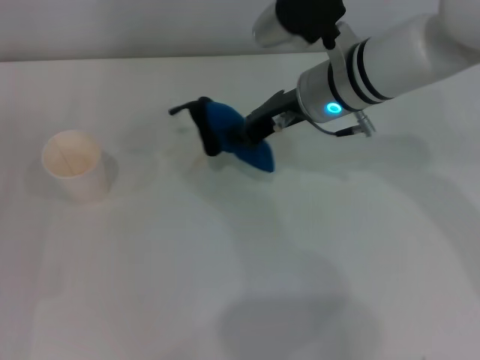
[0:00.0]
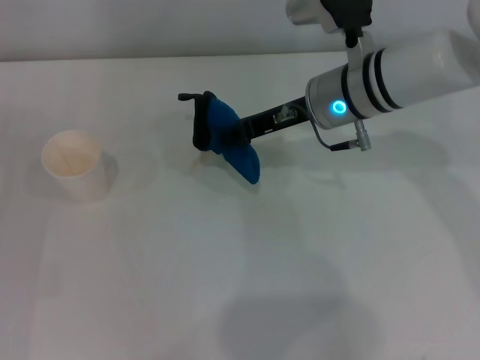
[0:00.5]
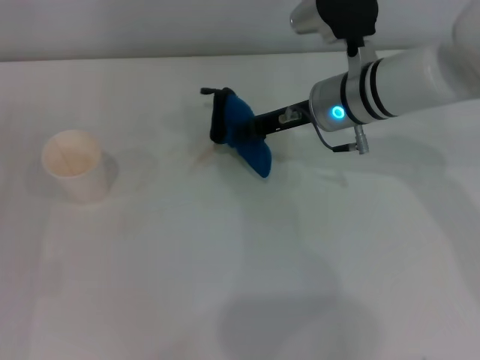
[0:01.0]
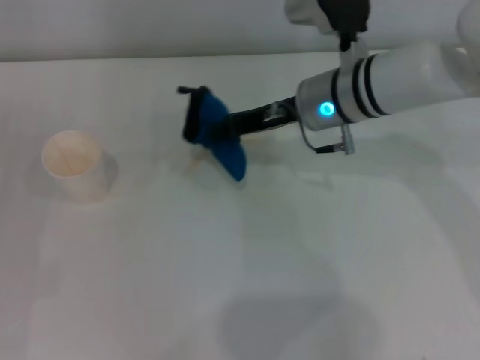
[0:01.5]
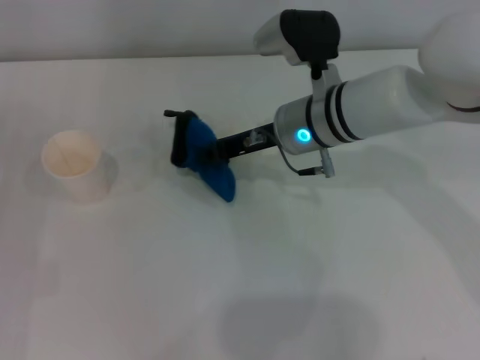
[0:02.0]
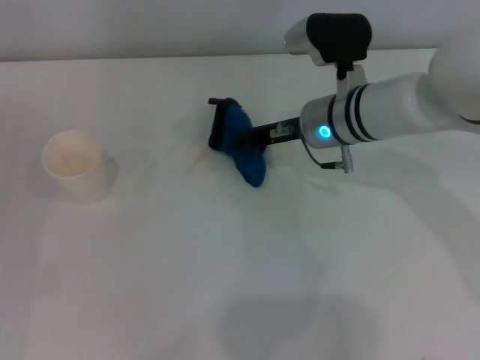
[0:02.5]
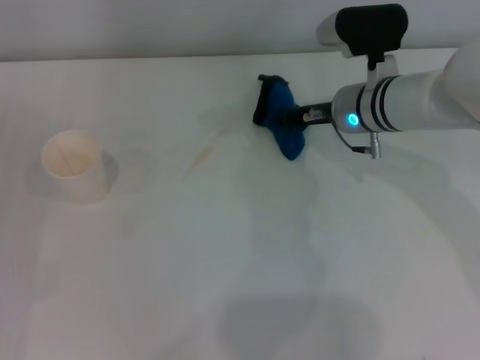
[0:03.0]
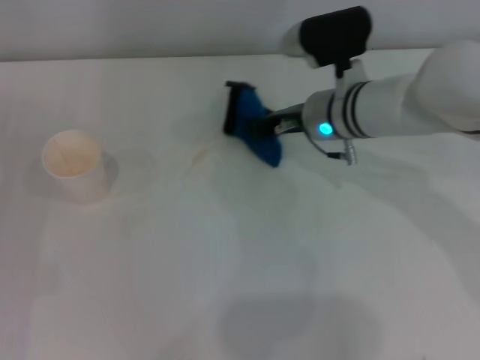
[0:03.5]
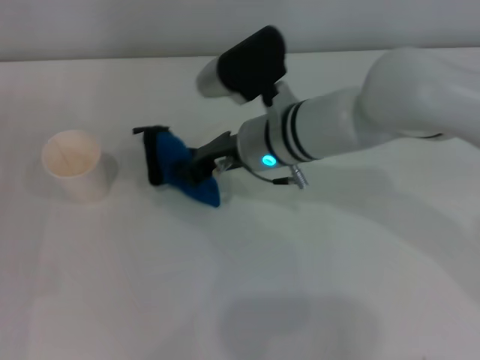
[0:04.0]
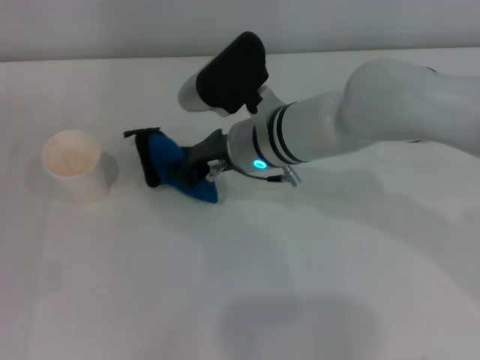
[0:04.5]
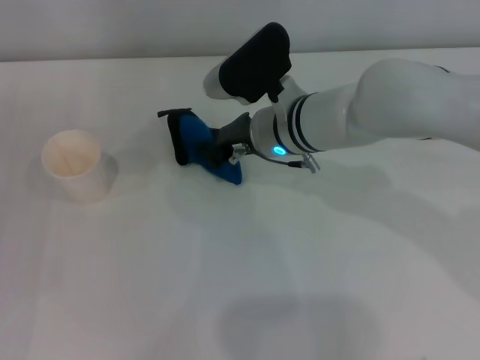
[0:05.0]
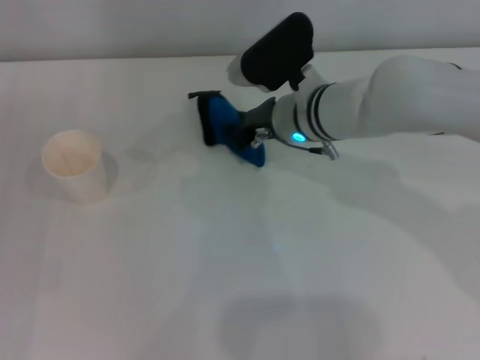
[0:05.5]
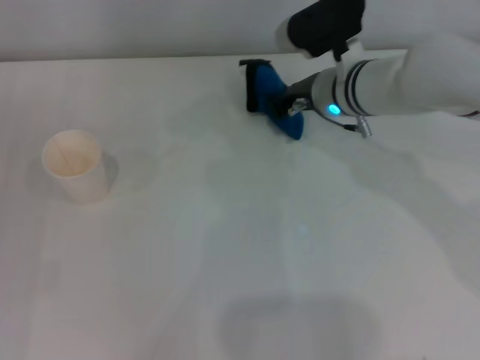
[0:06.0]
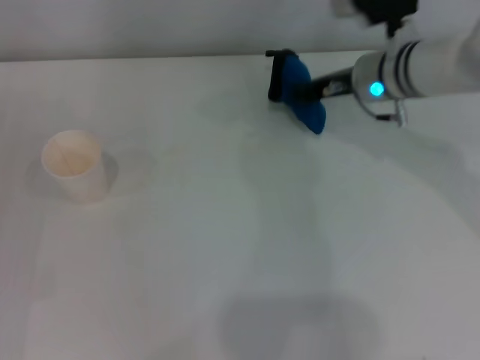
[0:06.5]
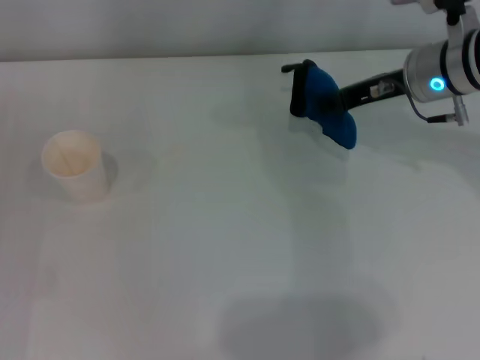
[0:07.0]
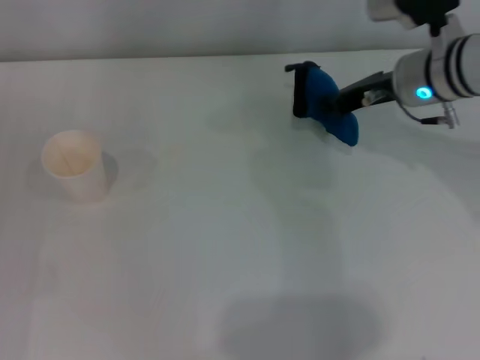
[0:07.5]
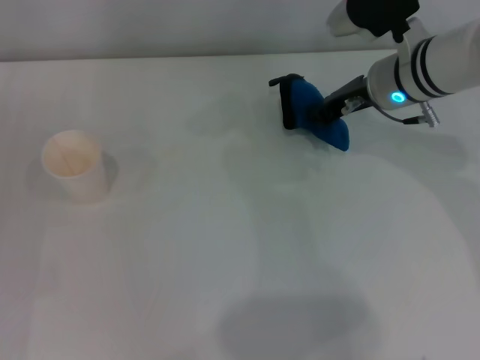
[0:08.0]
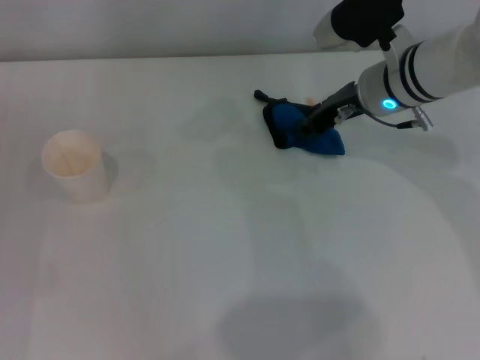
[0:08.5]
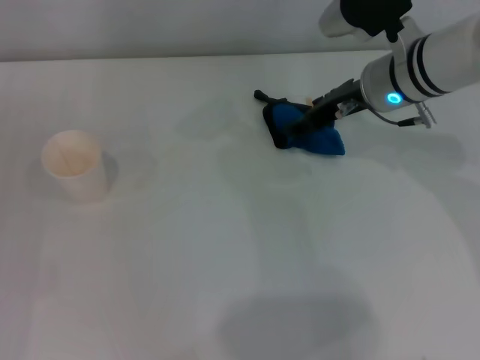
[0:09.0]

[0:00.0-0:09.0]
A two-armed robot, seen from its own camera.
0:02.0 to 0:04.5: The right gripper moves to the left, roughly 5 cm.
0:04.5 to 0:07.0: The right gripper heads to the right, covering roughly 20 cm.
0:07.0 to 0:09.0: The right gripper opens its fingers.

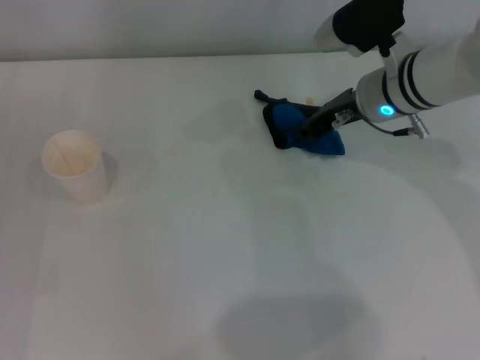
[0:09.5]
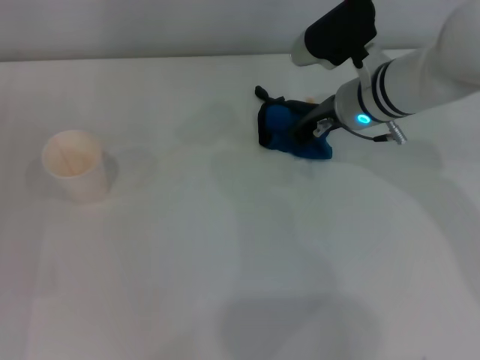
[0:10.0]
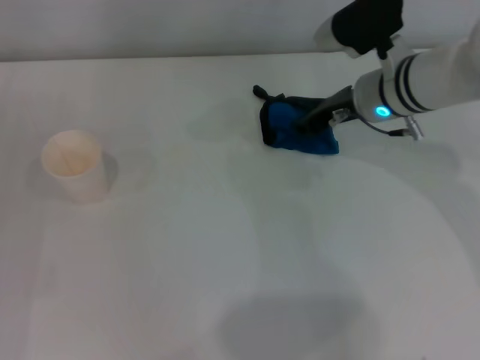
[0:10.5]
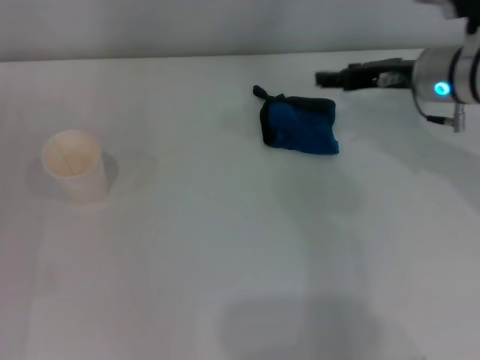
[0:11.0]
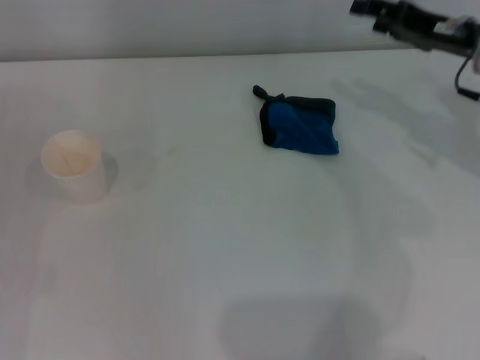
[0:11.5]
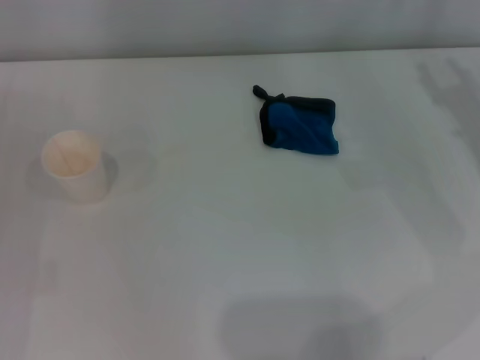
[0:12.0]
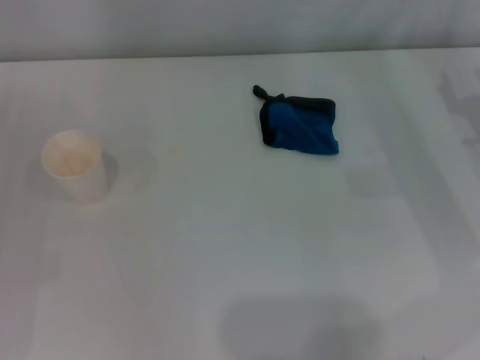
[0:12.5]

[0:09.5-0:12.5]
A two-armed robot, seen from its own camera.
Step, 0:10.0 to 0:10.5: Place the rag on the table with the right gripper.
0:09.5 to 0:11.0: The right gripper is displaced to the right by about 5 cm, and closes, then reopens.
0:11.0 to 0:12.5: The right gripper shifts roughly 15 cm to the right and backward.

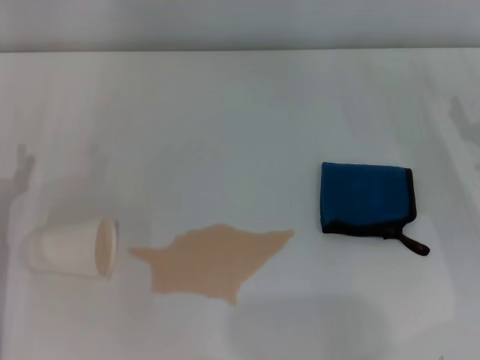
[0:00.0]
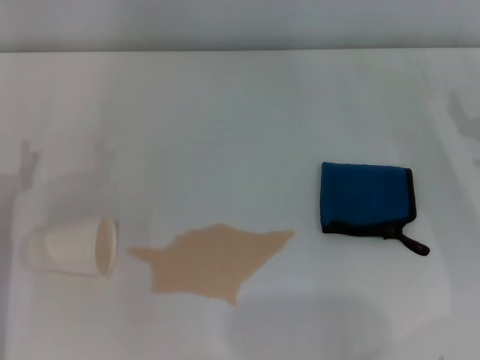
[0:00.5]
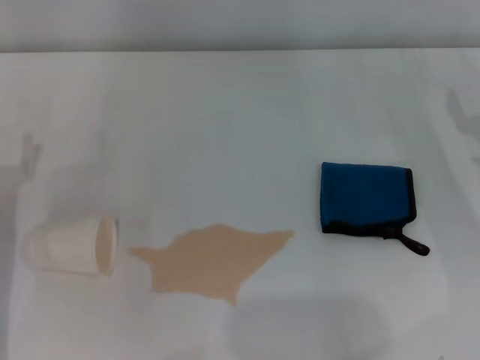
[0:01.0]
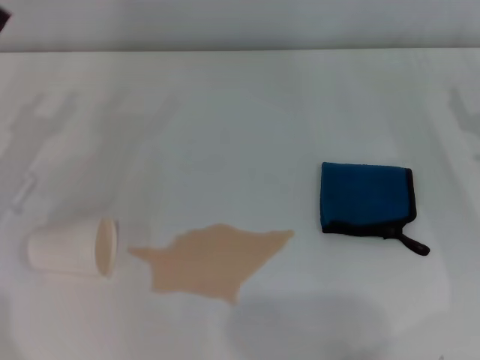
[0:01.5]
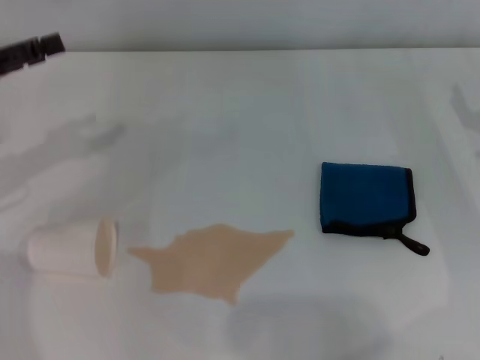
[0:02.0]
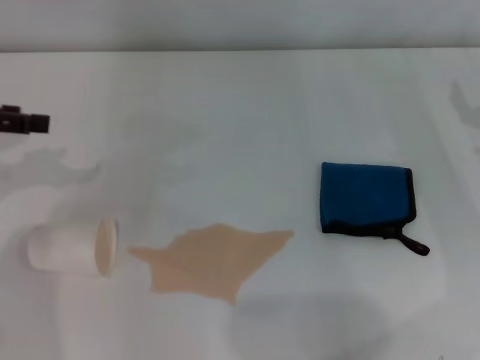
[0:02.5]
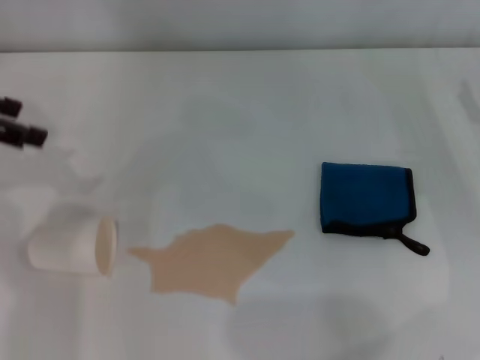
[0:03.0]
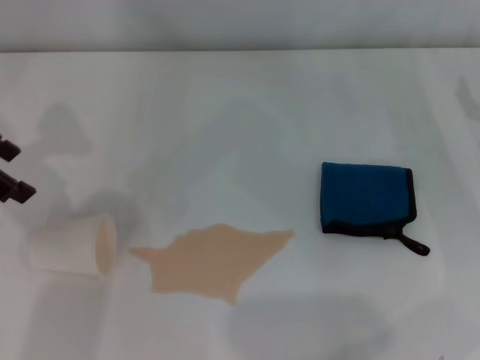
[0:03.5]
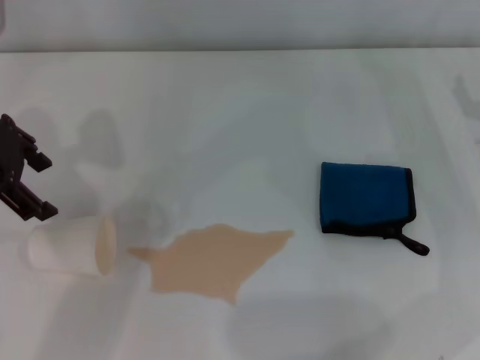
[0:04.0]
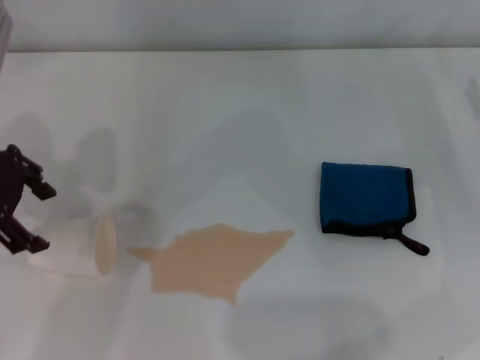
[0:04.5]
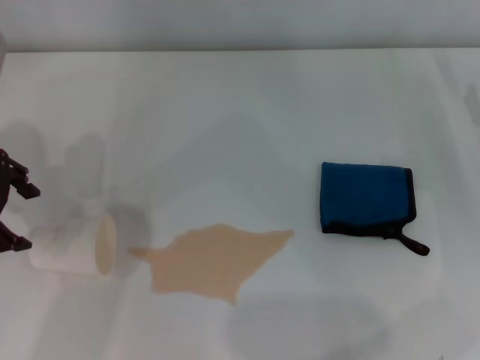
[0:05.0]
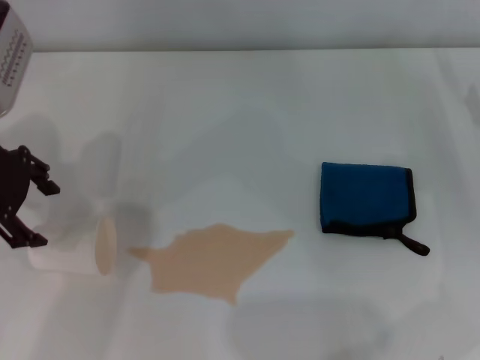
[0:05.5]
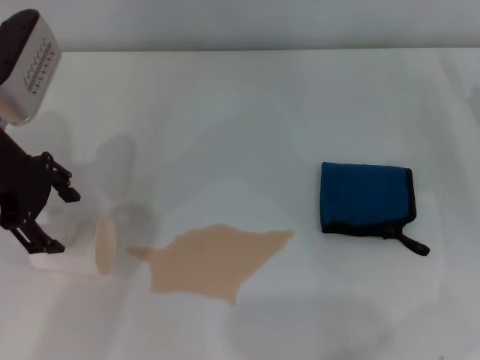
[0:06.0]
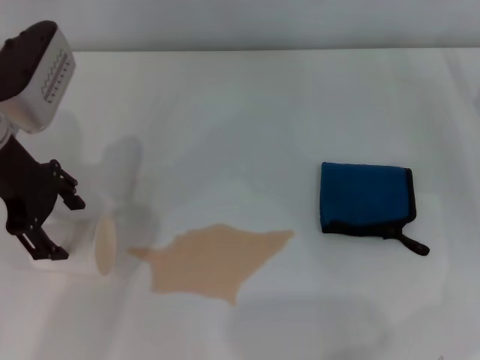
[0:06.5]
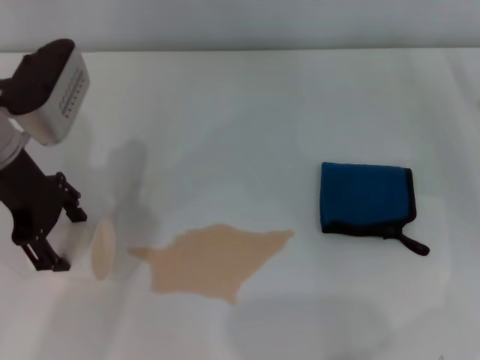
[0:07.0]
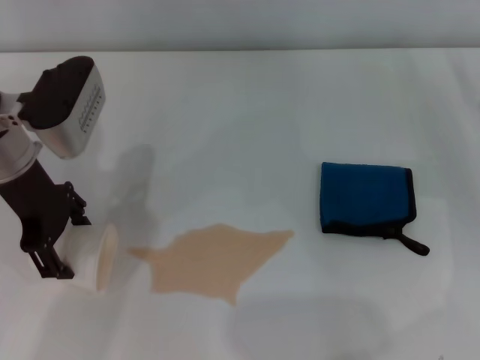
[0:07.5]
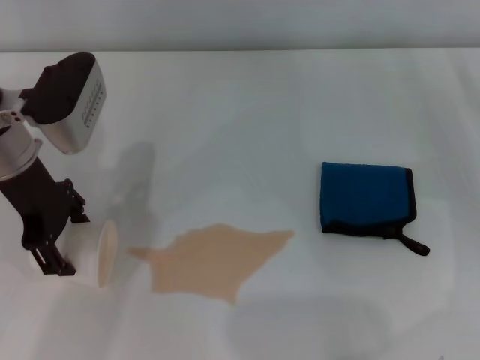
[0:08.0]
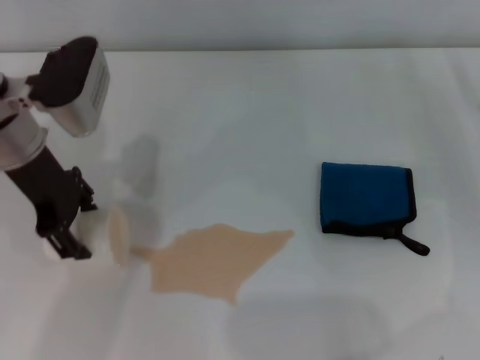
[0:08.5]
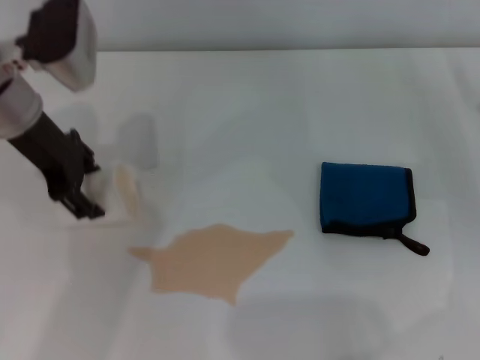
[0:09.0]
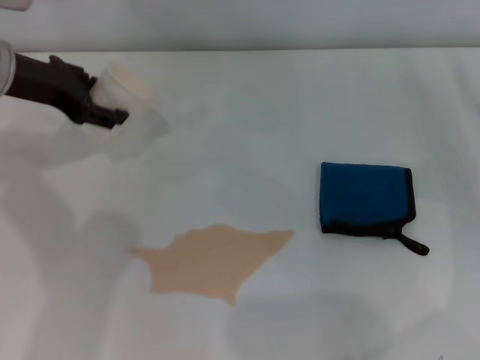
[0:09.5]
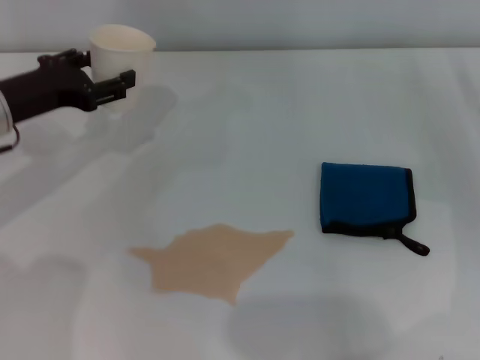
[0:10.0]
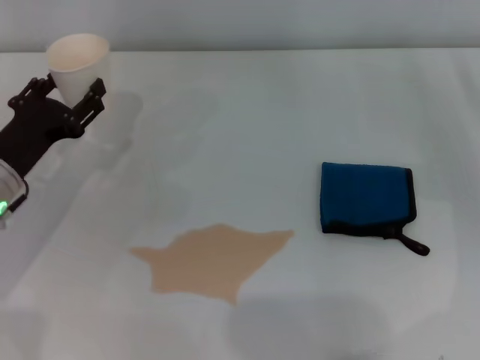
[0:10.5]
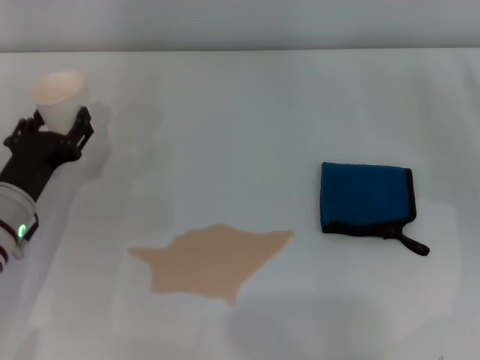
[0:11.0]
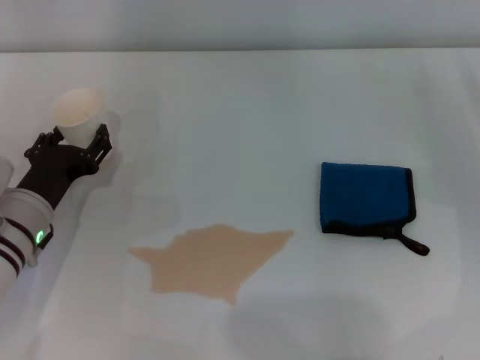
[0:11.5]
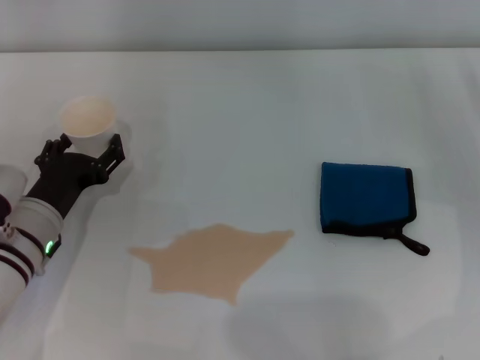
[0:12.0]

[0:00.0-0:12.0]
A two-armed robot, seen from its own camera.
Step, 0:00.0 to 0:08.0: Grasp the paper cup with the left gripper.
Step, 0:08.5 to 0:12.0: Stand the paper cup upright with the left gripper.
0:00.0 to 0:02.0: The left gripper shifts approximately 20 cm upward, forward and to the left.
0:02.0 to 0:04.0: The left gripper heads to the right and upward, covering about 10 cm.
0:04.0 to 0:06.0: The left gripper is displaced downward by about 5 cm.
0:06.0 to 0:08.0: The grippers move only a little.
0:08.0 to 0:10.0: The left gripper heads to the left, covering about 5 cm, and closes its fingers.
0:10.0 to 0:12.0: The left gripper travels downward and backward by approximately 15 cm, and opens its fingers.

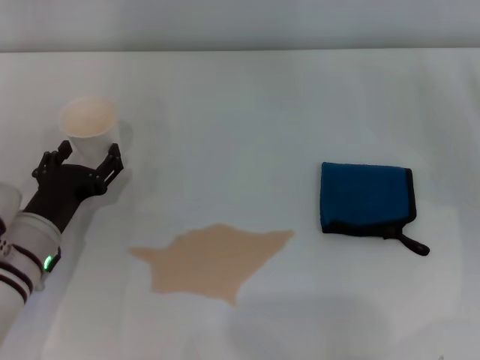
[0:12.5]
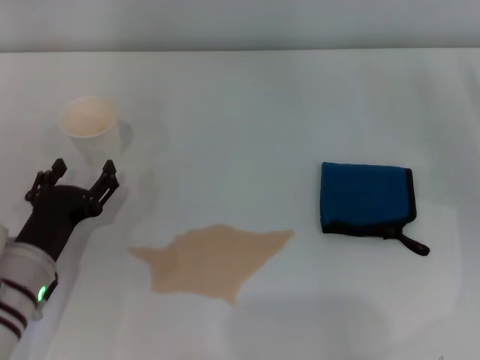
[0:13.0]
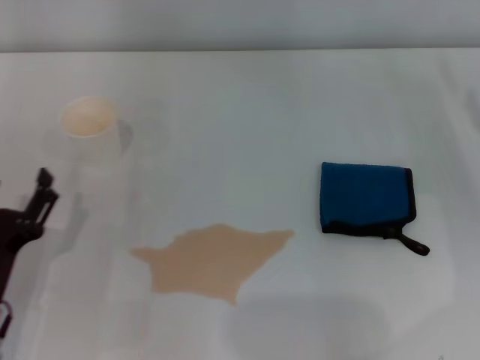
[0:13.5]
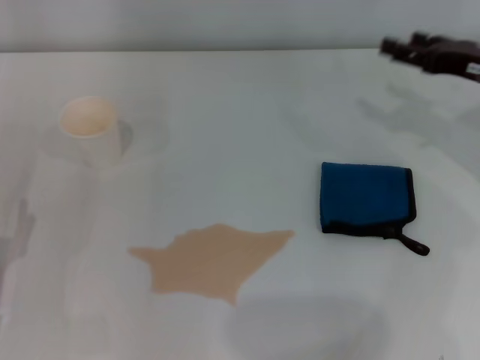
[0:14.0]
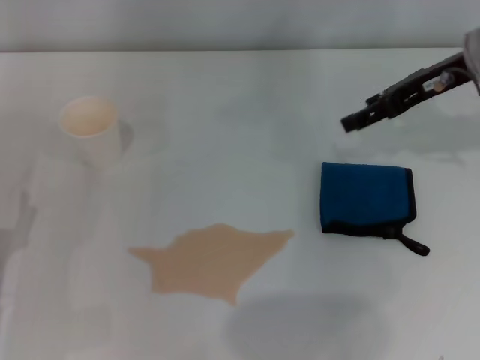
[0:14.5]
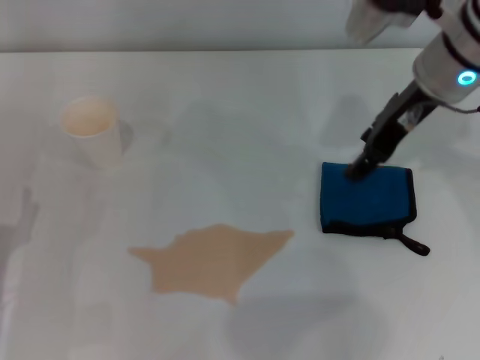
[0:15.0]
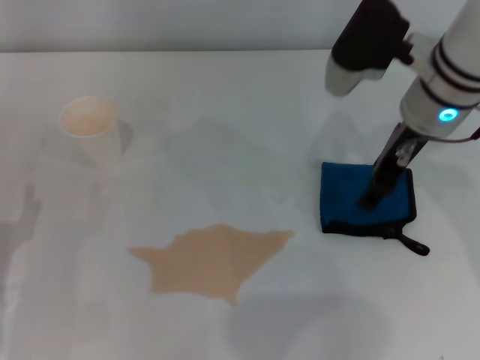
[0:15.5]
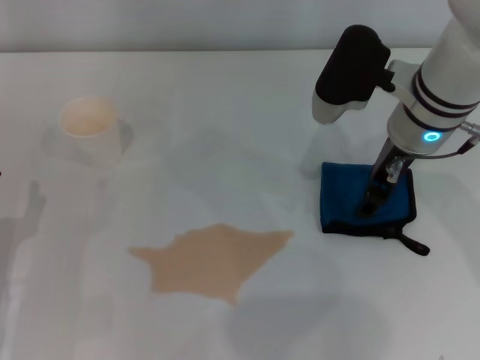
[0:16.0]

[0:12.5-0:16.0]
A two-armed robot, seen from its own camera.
0:12.5 to 0:14.5: The left gripper moves backward and to the left, roughly 10 cm, while the right gripper is displaced upward, to the left and forward by some 20 cm.
0:14.5 to 0:16.0: The right gripper travels to the left by approximately 10 cm.
